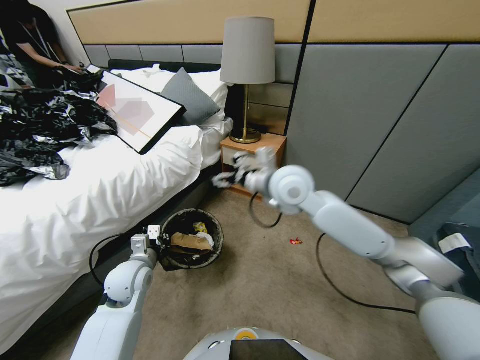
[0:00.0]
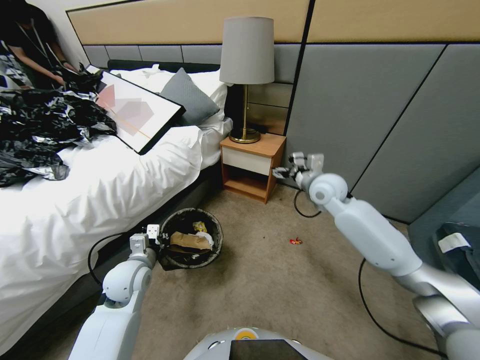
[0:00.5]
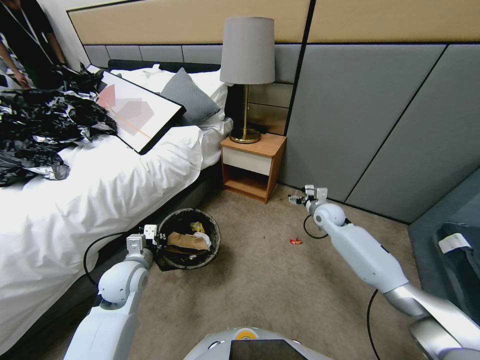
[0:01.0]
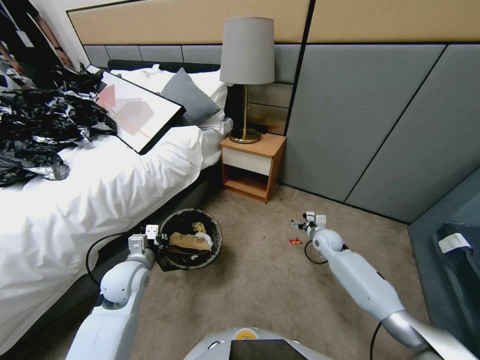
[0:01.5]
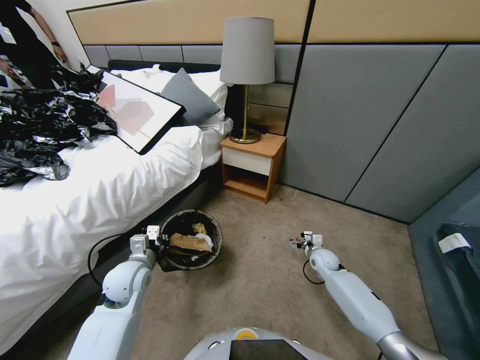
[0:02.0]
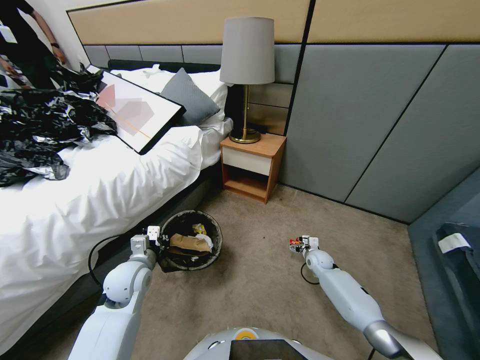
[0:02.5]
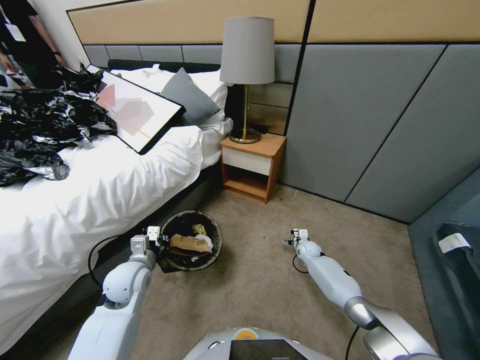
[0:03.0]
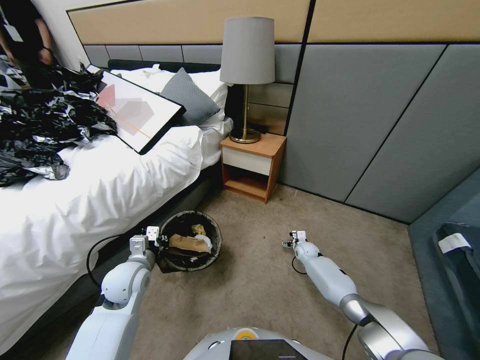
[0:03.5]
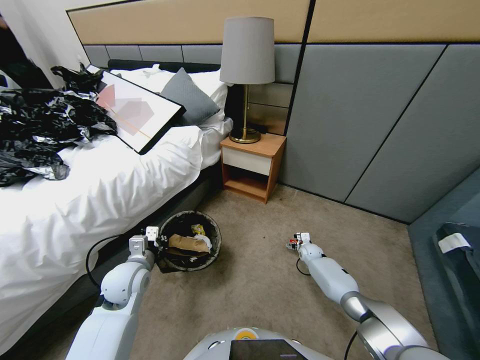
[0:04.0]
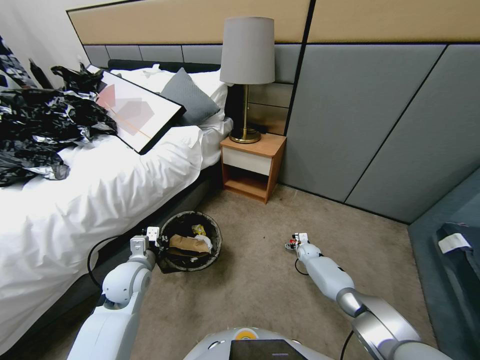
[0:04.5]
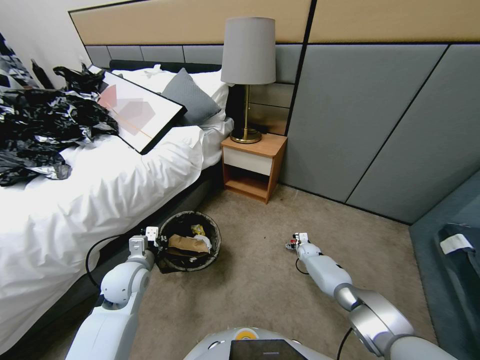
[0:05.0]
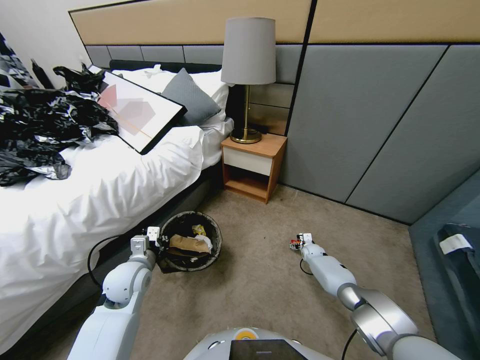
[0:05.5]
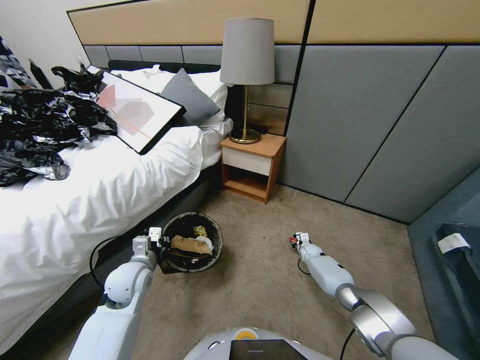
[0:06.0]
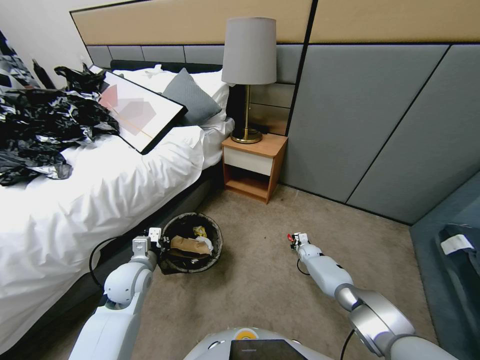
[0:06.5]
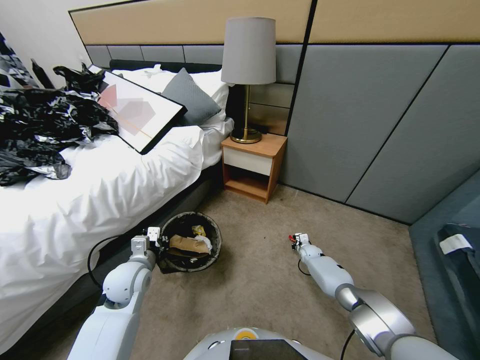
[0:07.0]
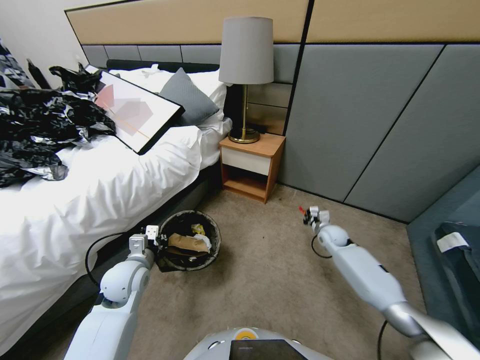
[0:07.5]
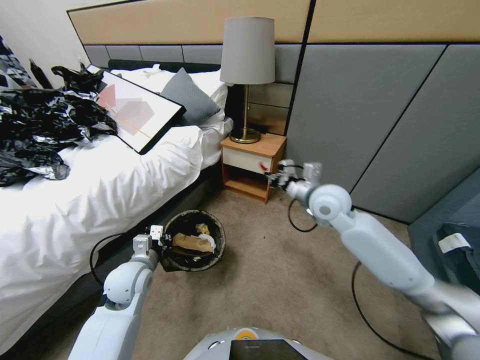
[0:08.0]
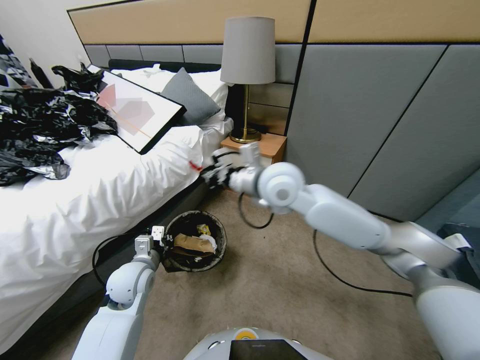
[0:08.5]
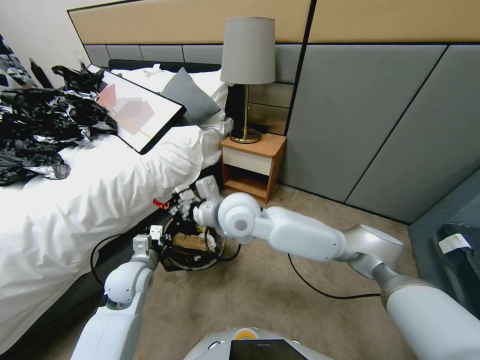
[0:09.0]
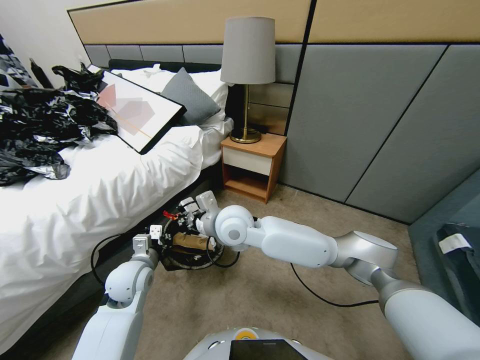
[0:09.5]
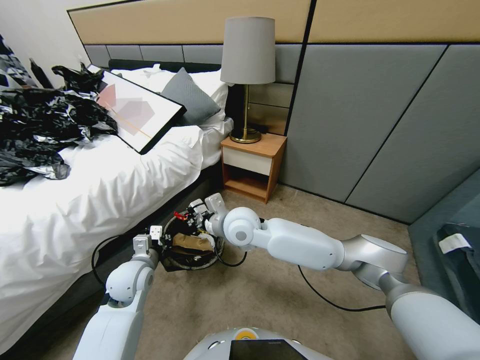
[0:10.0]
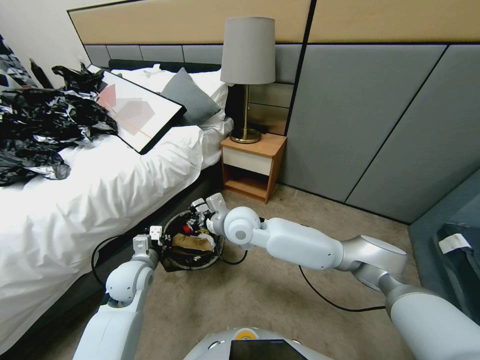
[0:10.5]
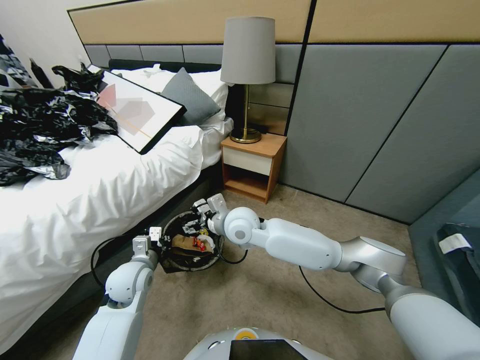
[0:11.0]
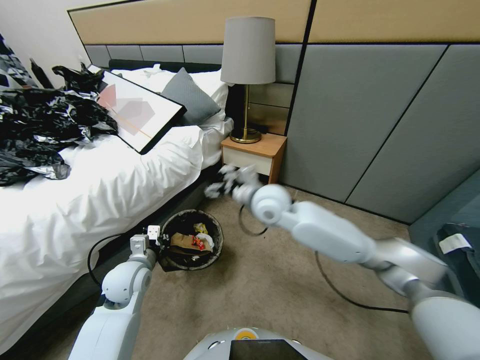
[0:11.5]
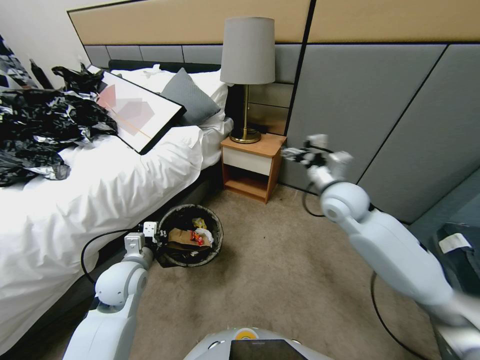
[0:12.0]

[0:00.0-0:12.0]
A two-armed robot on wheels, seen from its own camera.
Task of the whole recording: Pick up the trash bin, then pick up the garbage from the floor and place it into the trash bin.
0:00.0 to 0:02.0: The right gripper travels downward and to the right by about 40 cm.
0:02.0 to 0:04.0: The right gripper is displaced forward and downward by roughly 10 cm.
0:04.0 to 0:06.0: The right gripper closes its fingers.
0:06.0 to 0:08.0: The right gripper is displaced upward by approximately 50 cm, and closes up.
0:08.0 to 0:10.0: The right gripper moves to the left and downward, some 20 cm.
0:10.0 to 0:12.0: The right gripper travels to the right by approximately 30 cm, and opens its fingers.

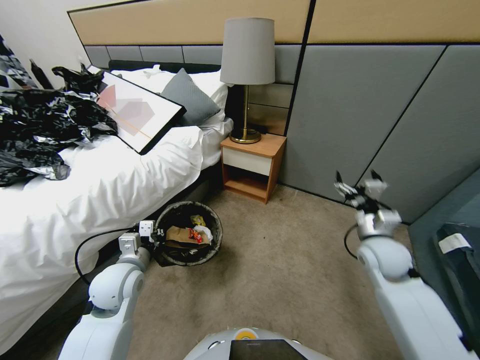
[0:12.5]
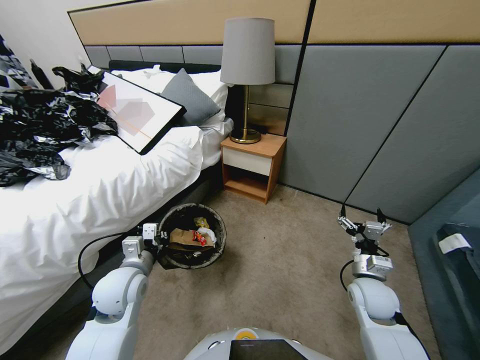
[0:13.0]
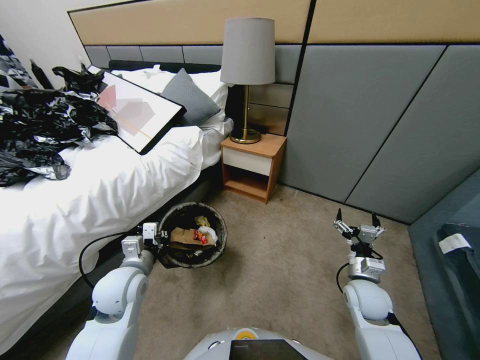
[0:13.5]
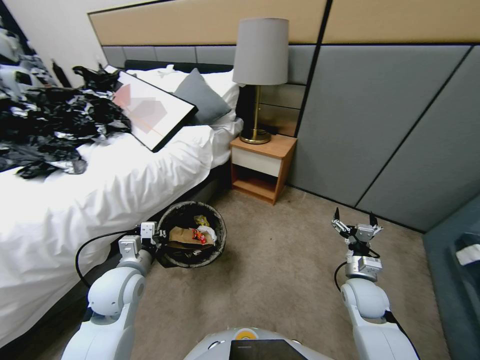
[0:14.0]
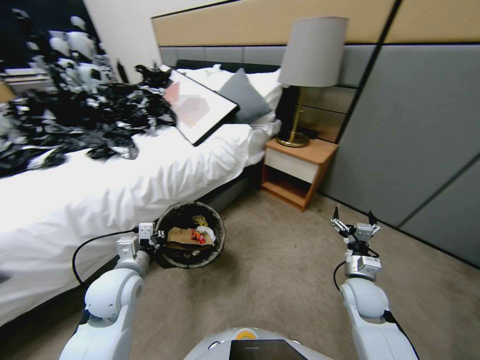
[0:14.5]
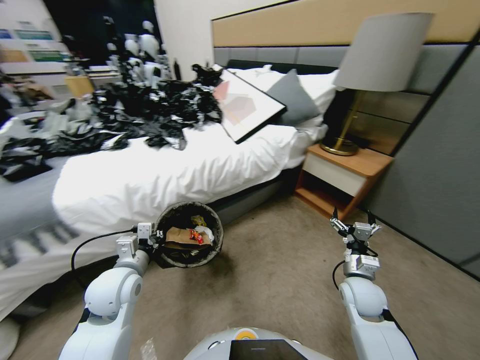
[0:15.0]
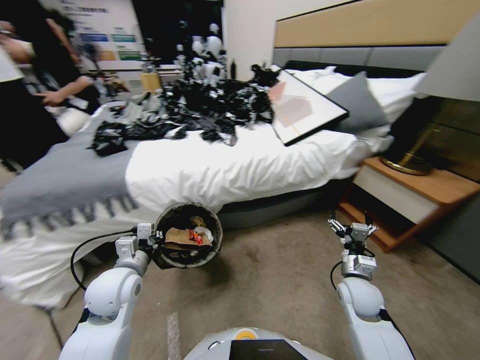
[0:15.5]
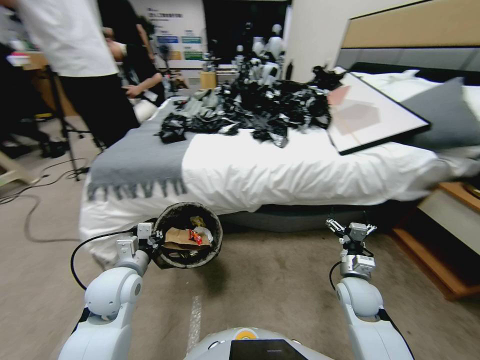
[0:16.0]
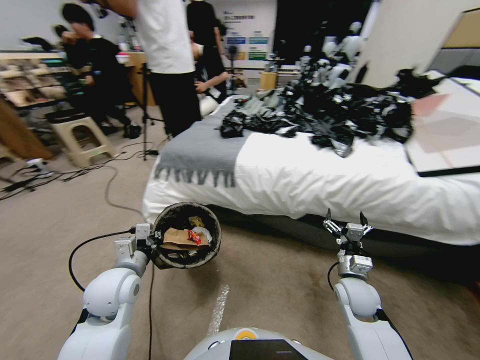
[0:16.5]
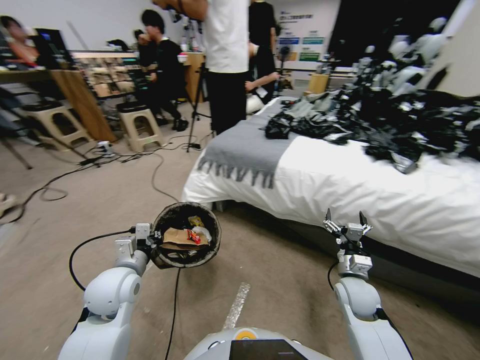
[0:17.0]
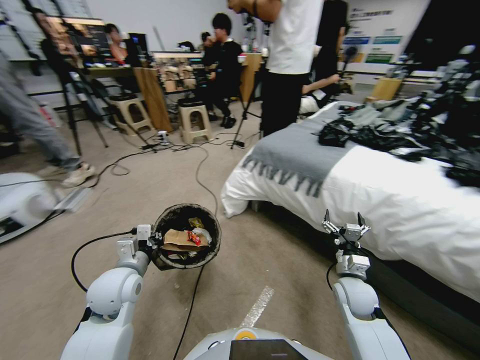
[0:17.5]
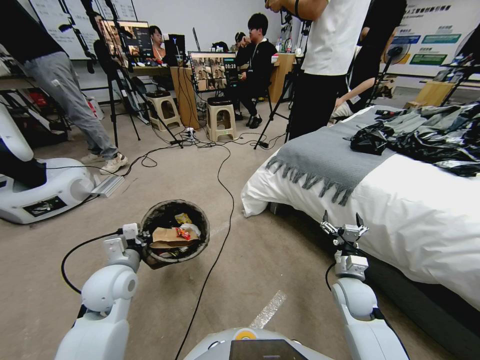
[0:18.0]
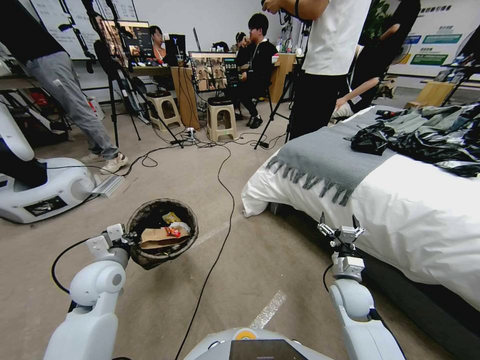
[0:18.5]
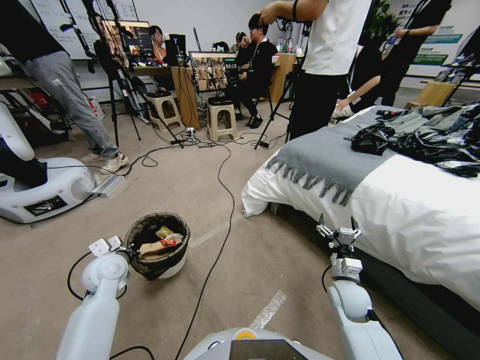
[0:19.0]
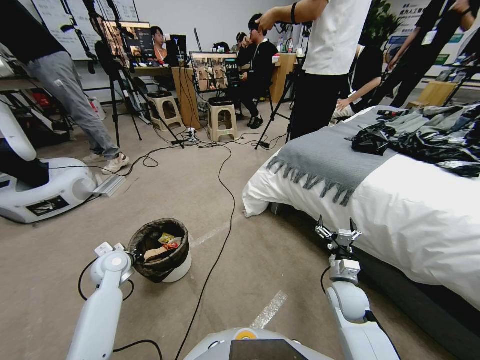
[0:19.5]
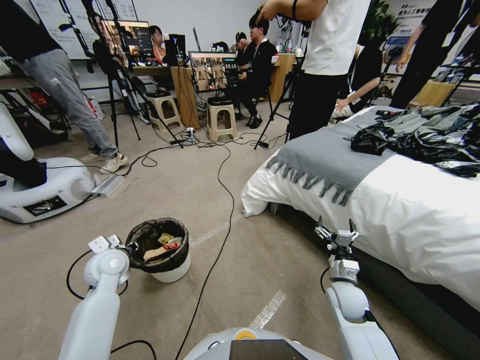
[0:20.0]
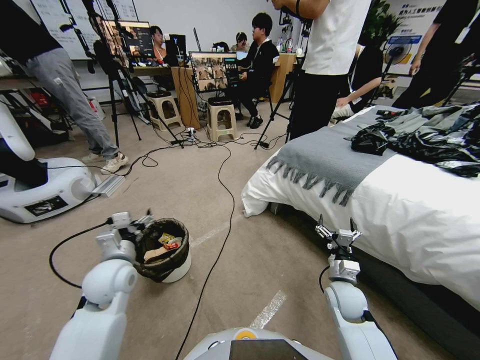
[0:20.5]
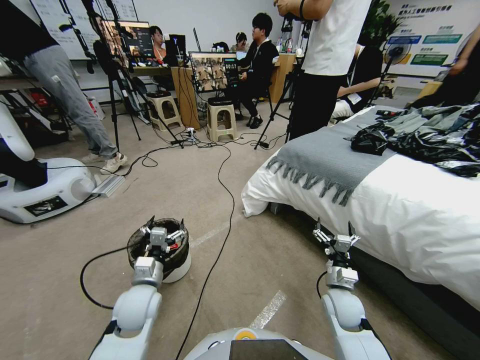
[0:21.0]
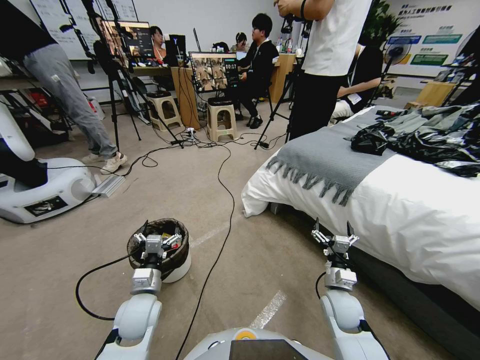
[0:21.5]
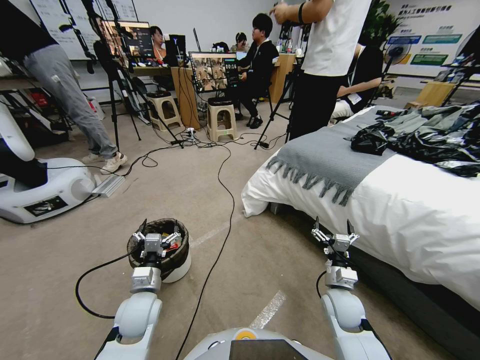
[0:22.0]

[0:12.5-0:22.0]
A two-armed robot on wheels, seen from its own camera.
Task of the whole recording: Pick up the trash bin, then pick up the garbage from the floor and place it into the trash bin.
0:12.5 to 0:14.5: The right gripper is displaced downward by about 5 cm.
0:18.0 to 0:20.0: The left gripper shifts about 10 cm forward and to the left, and opens its fingers.
0:20.0 to 0:22.0: The left gripper goes some 15 cm to the right, backward and downward, and opens up.

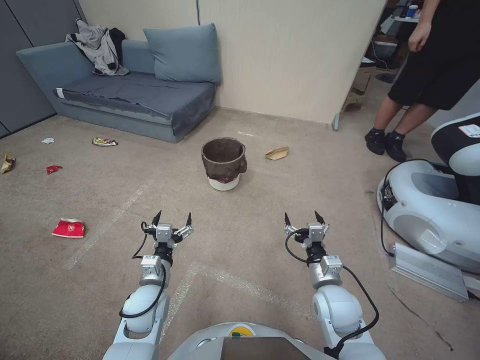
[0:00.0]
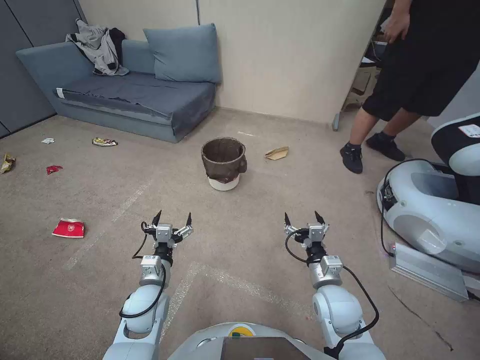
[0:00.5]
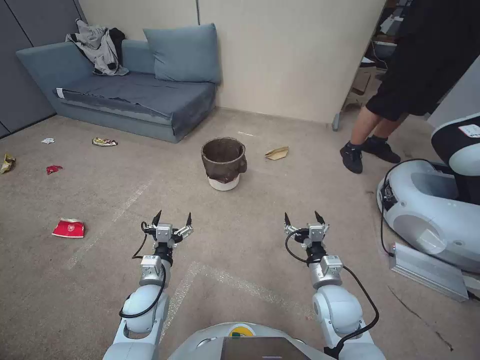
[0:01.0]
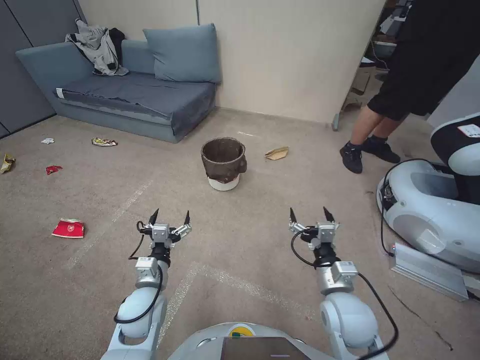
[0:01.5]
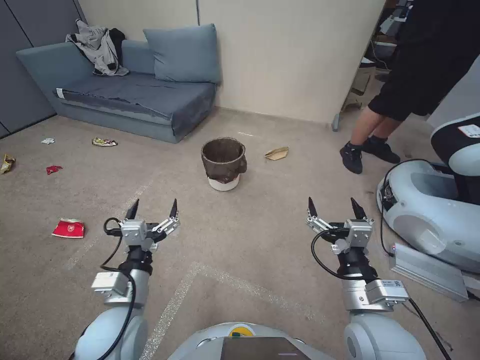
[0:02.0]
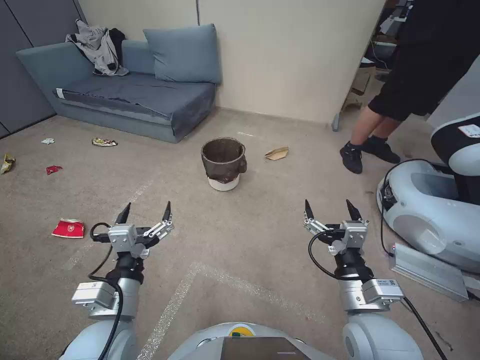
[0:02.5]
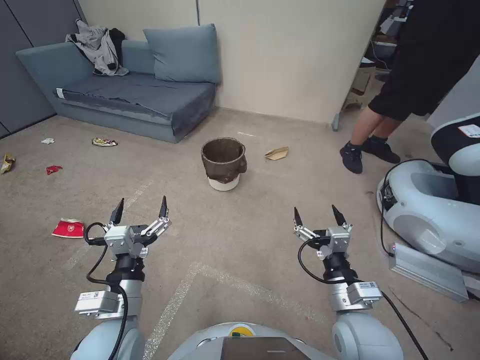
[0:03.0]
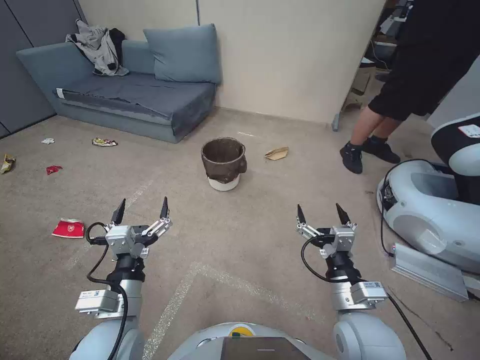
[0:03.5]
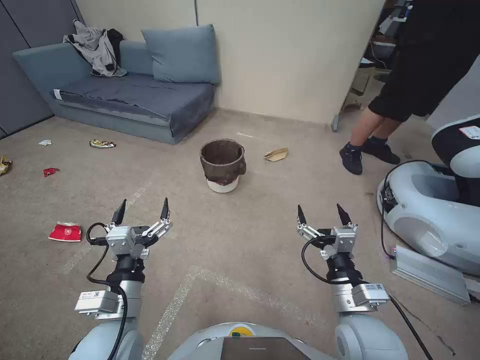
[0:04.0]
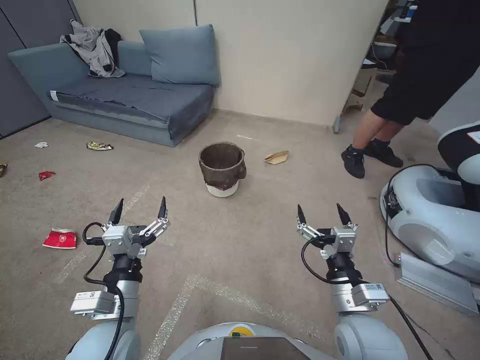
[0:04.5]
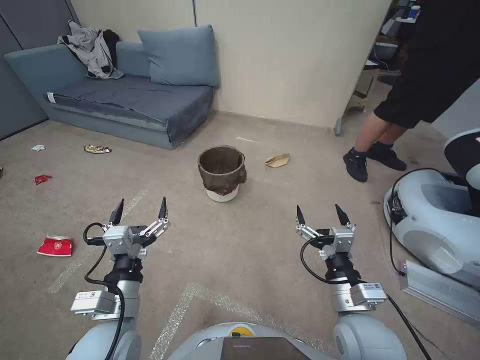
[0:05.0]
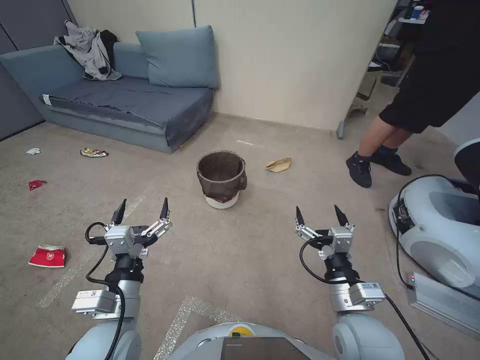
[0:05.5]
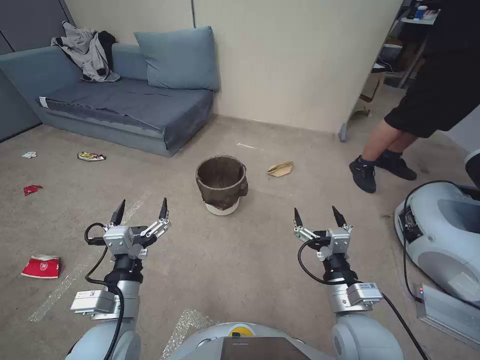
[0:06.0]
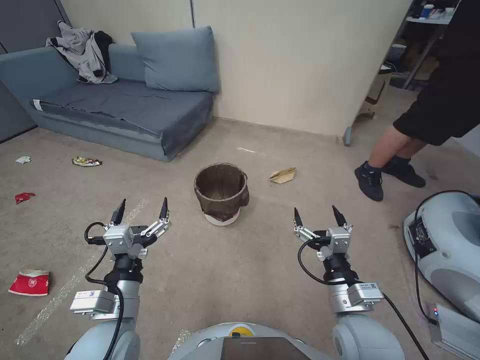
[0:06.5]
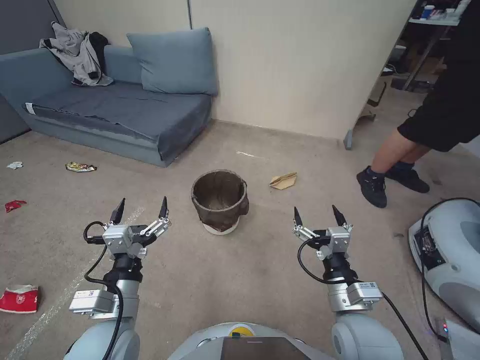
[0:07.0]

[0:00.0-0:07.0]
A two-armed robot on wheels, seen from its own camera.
Task of the whole recording: Pick up the trash bin, then pick up the garbage from the floor and place it into the trash bin.
0:02.0 to 0:03.5: There are only small adjustments of the grippers.
0:03.5 to 0:05.0: Both grippers stay put.
